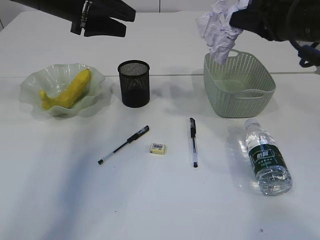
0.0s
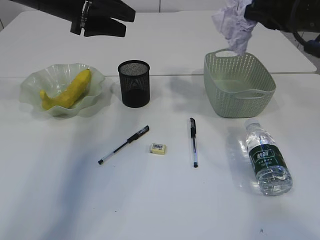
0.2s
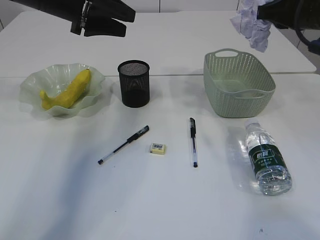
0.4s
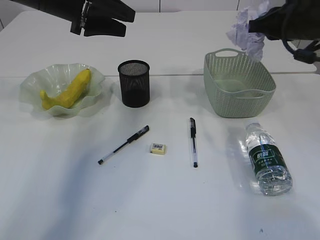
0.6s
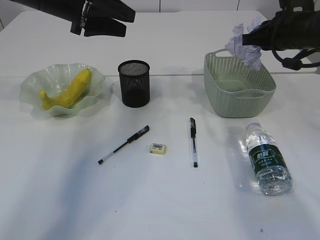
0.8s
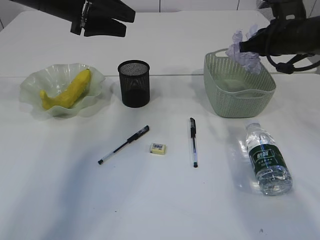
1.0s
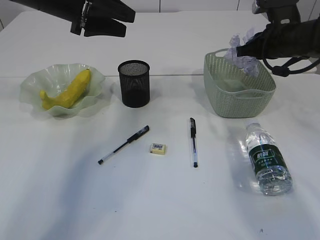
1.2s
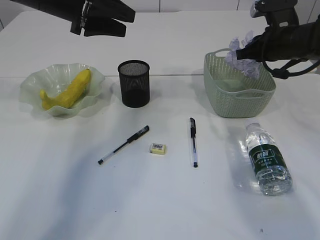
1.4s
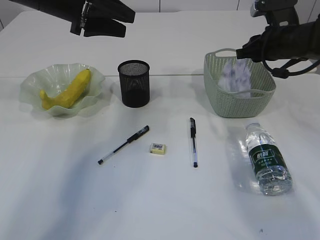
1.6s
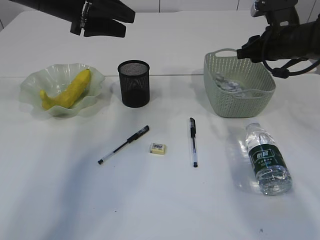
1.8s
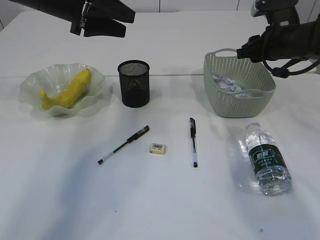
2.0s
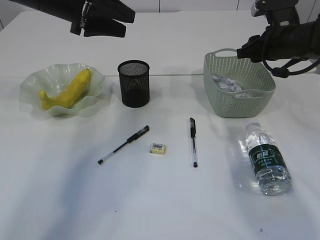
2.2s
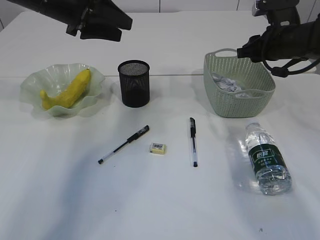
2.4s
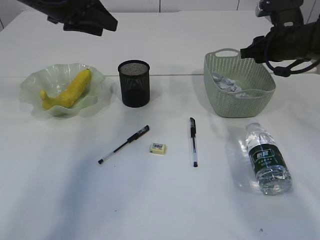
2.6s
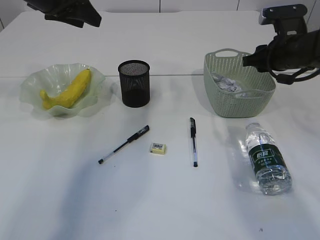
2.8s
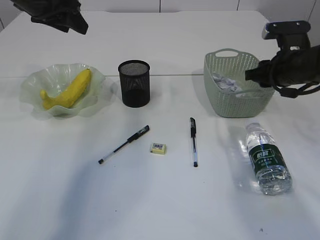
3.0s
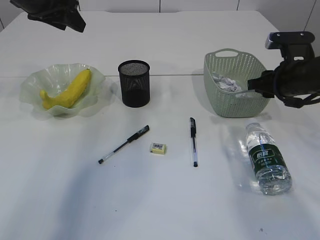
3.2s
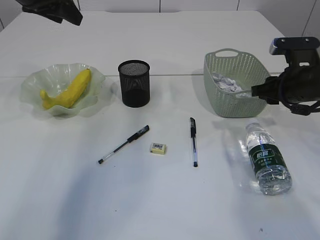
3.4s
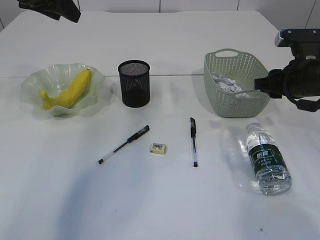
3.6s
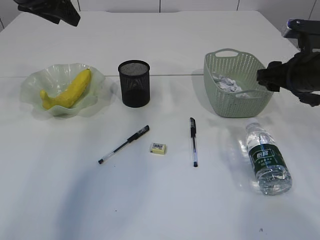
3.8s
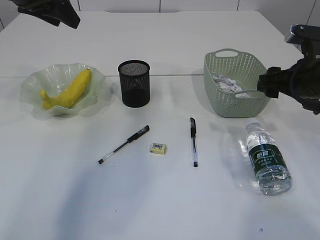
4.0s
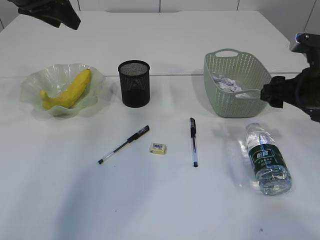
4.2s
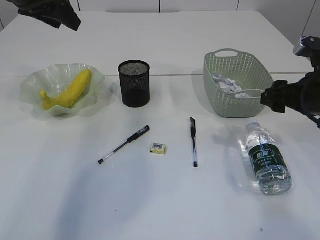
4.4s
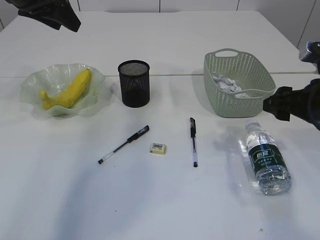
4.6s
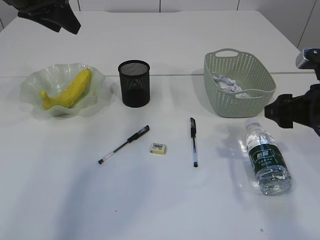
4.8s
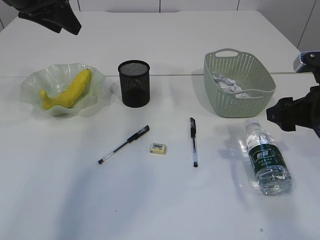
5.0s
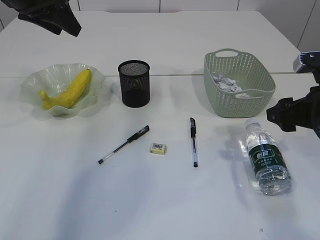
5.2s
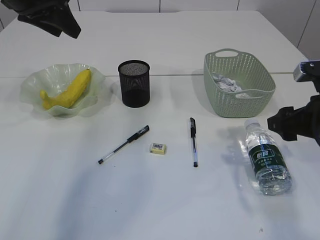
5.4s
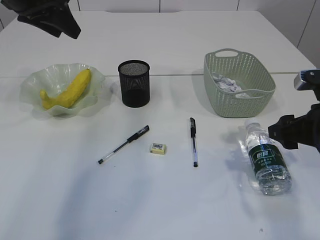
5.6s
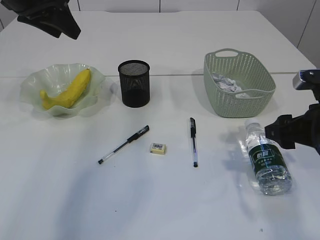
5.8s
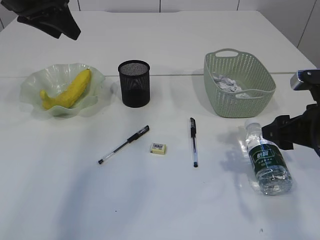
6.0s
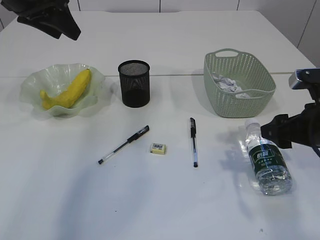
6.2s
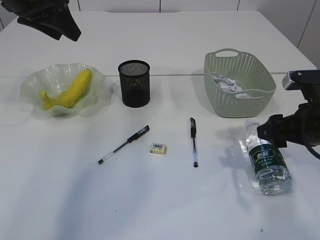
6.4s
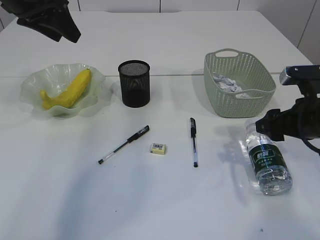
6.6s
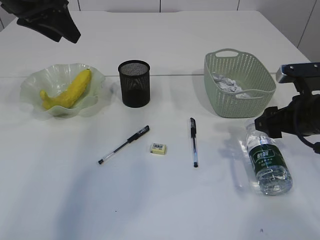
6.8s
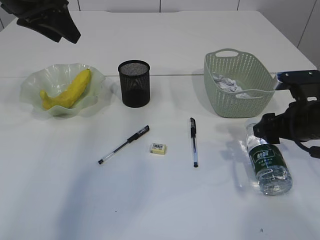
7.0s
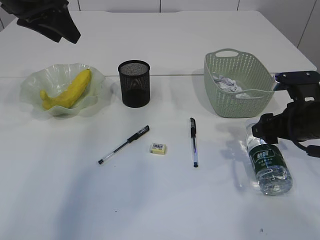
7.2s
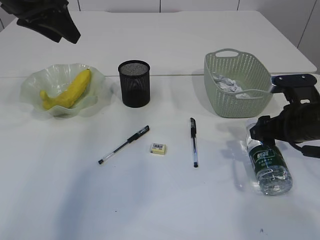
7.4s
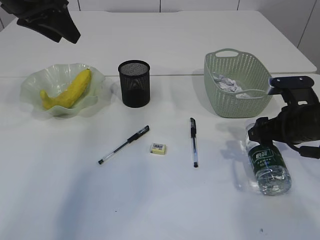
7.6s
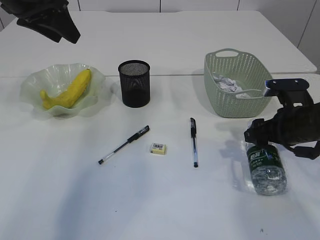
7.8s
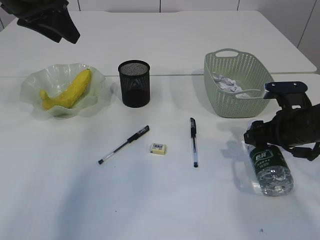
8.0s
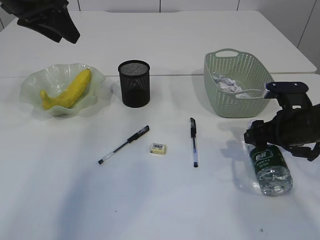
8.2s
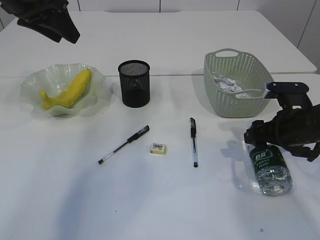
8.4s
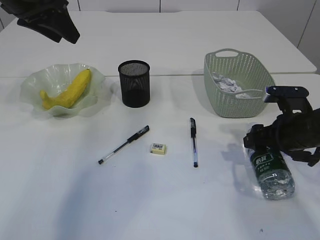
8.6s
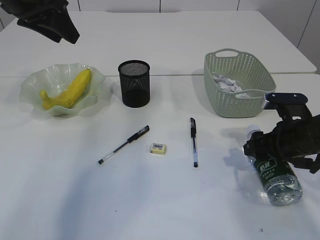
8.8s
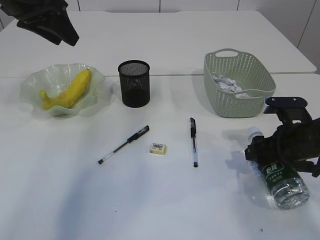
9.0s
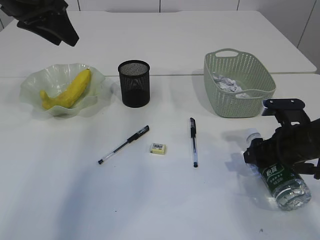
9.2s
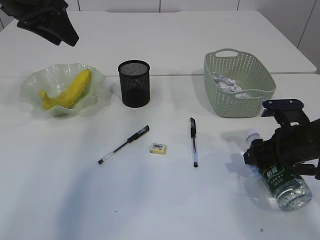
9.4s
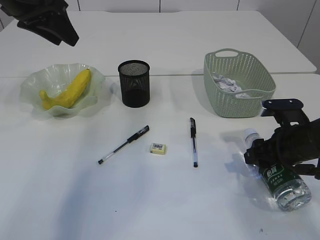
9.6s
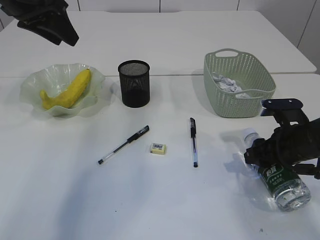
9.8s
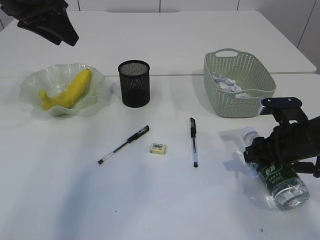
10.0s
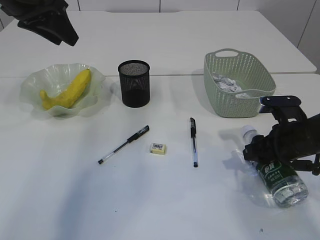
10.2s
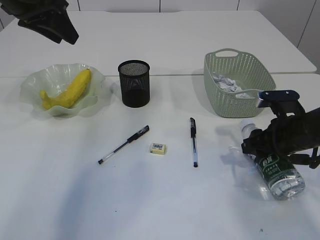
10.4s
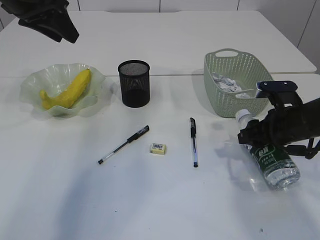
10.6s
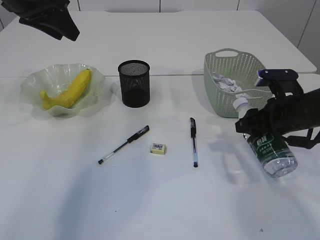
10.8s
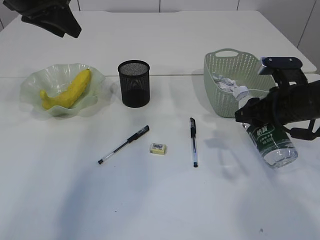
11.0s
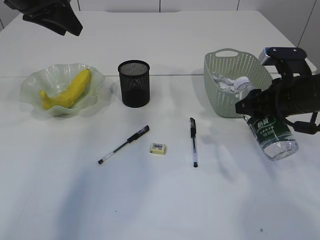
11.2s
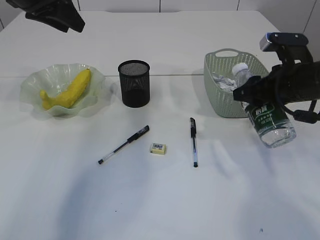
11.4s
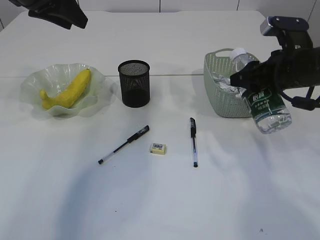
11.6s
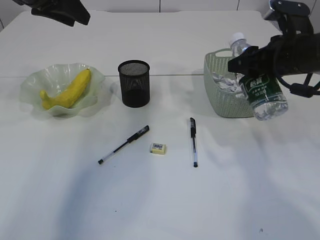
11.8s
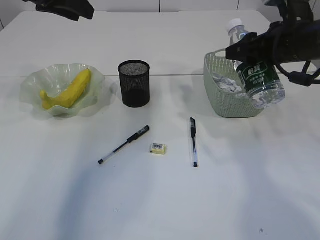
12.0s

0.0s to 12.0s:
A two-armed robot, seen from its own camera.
Step, 0.0s to 1.8s: Place the waste paper in the basket.
Step, 2.0s to 10.8s: Pick up the bottle with the right arm.
0.0s to 1.6s: The right gripper shifts some 15 cm forward and downward.
3.0s to 4.4s: The right gripper travels backward by roughly 10 cm, and opens its fingers.
4.4s to 6.0s: The right gripper moves some 5 cm.
6.0s to 7.6s: The right gripper travels forward by about 5 cm.
7.6s to 9.0s: The grippers move only a little.
9.0s to 10.4s: The two grippers keep their place.
10.4s to 12.0s: The right gripper moves upward, approximately 15 cm.

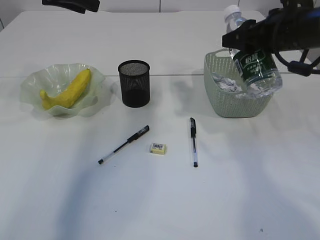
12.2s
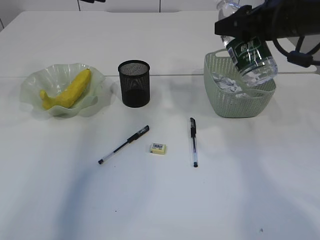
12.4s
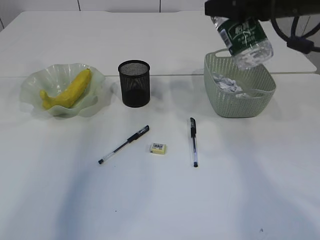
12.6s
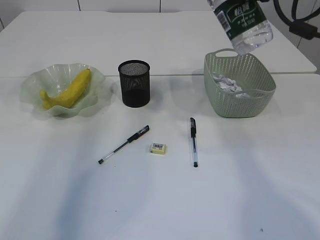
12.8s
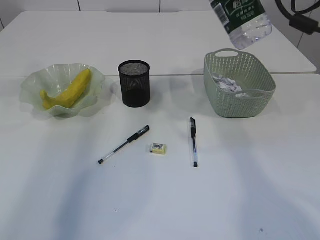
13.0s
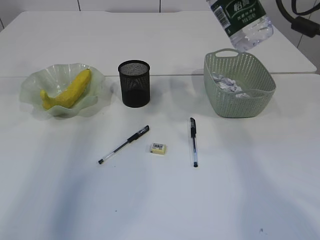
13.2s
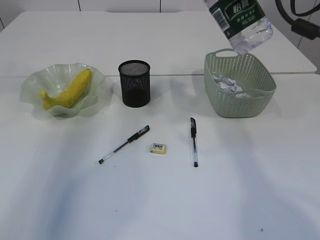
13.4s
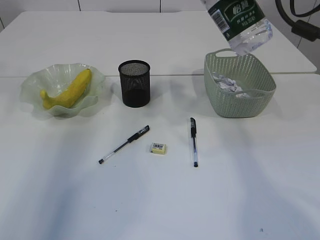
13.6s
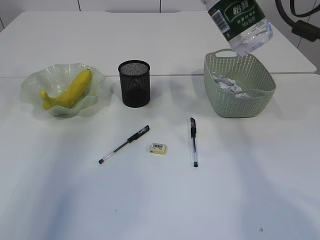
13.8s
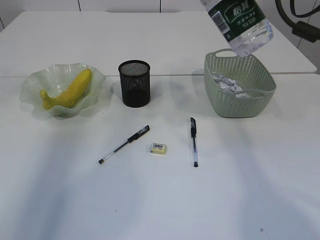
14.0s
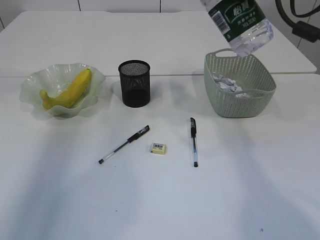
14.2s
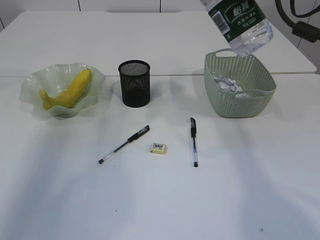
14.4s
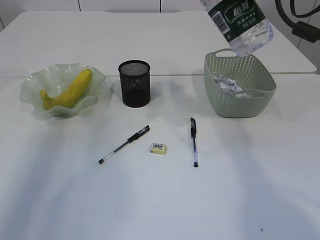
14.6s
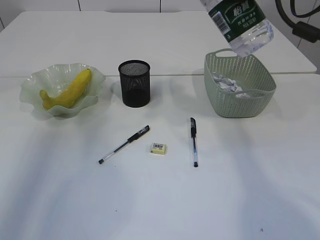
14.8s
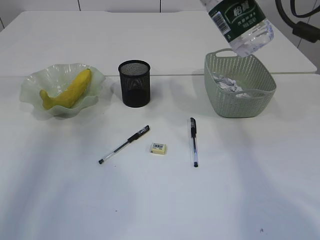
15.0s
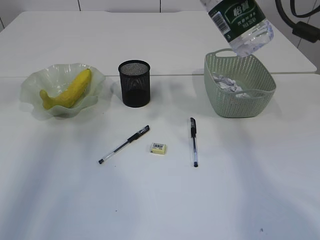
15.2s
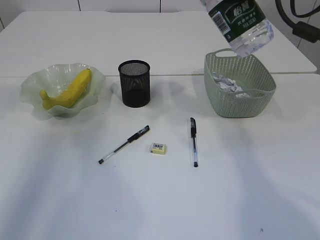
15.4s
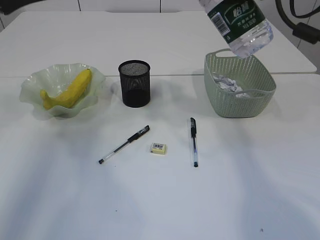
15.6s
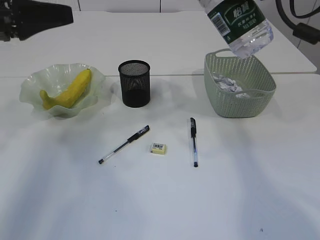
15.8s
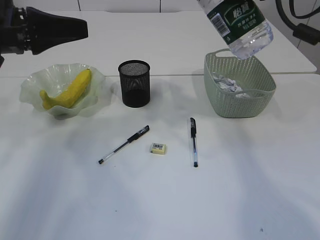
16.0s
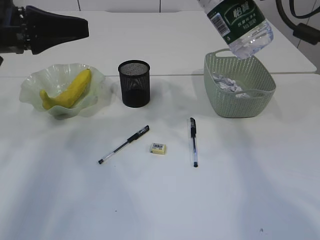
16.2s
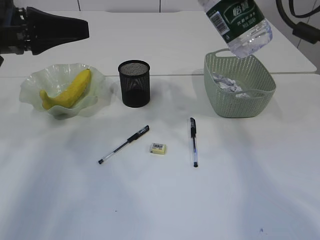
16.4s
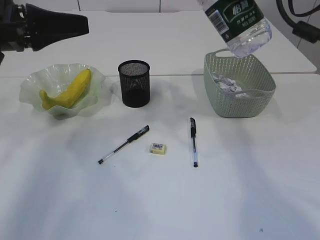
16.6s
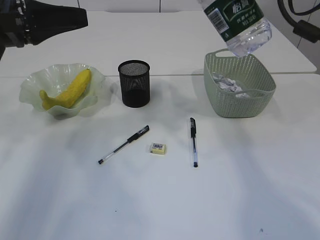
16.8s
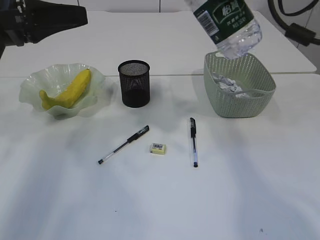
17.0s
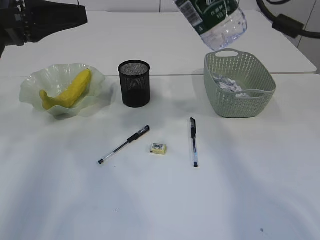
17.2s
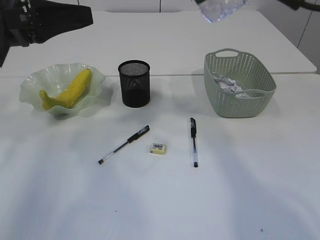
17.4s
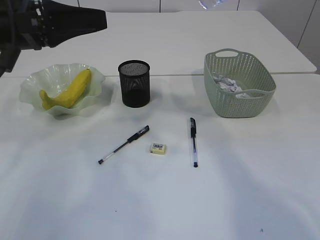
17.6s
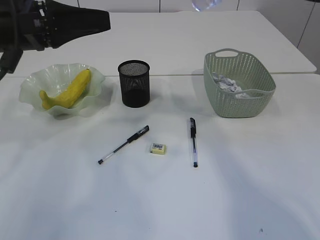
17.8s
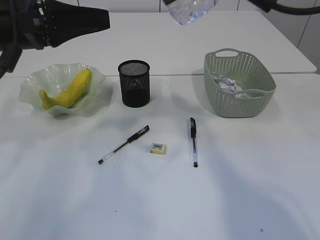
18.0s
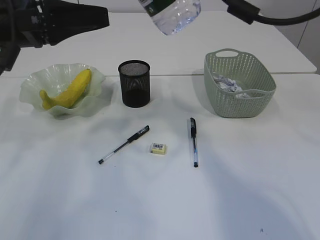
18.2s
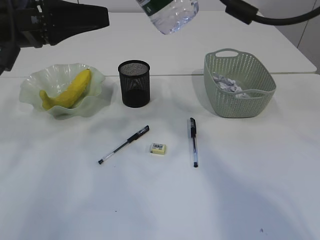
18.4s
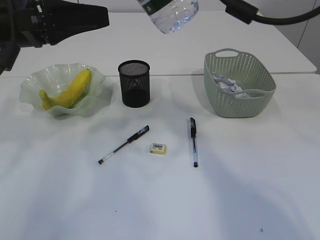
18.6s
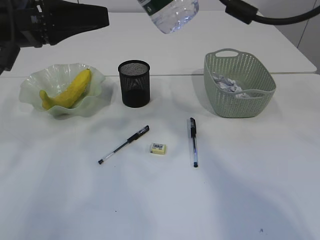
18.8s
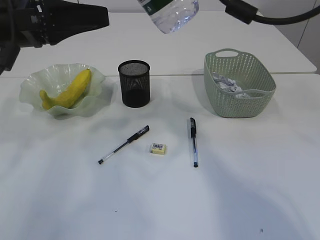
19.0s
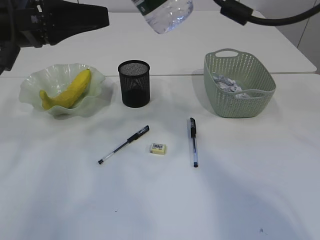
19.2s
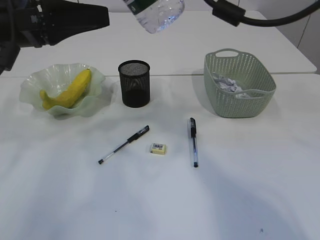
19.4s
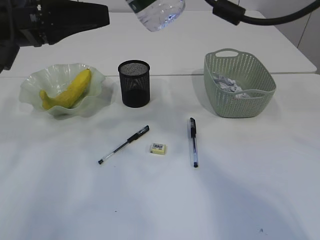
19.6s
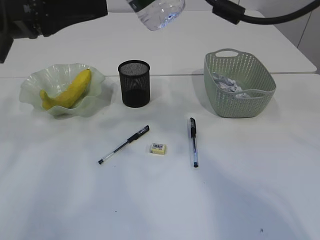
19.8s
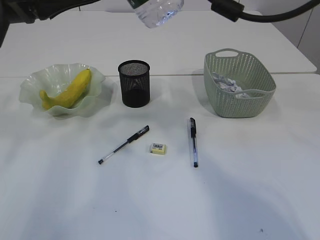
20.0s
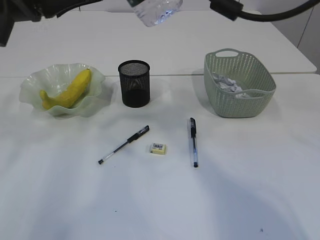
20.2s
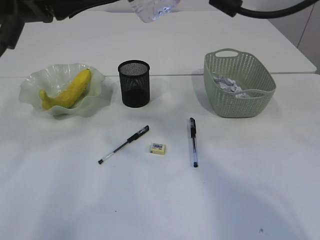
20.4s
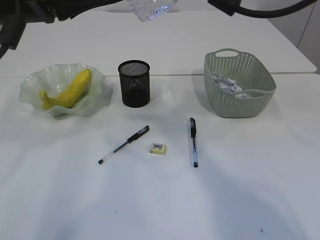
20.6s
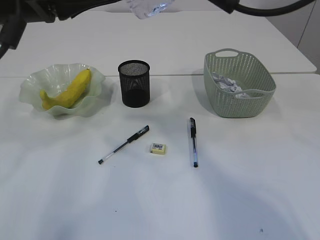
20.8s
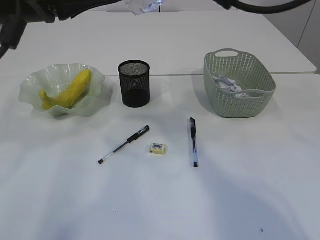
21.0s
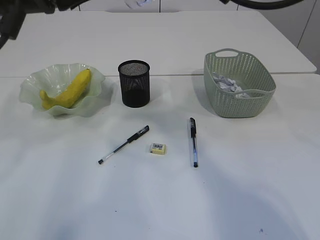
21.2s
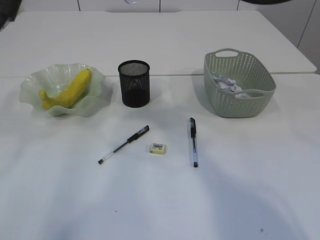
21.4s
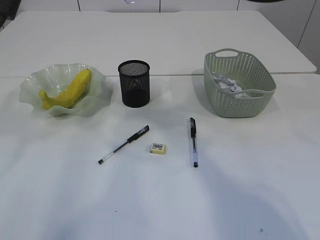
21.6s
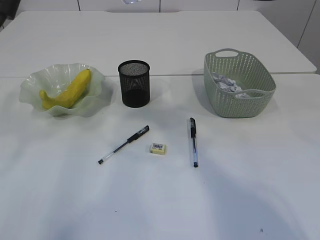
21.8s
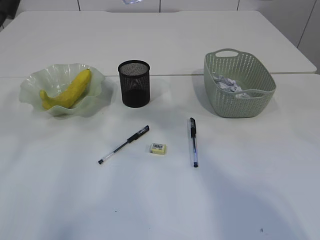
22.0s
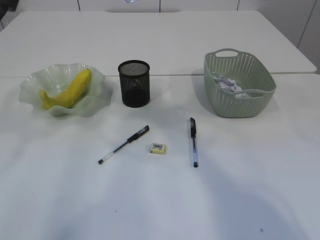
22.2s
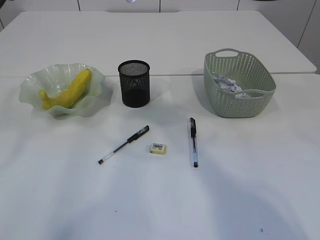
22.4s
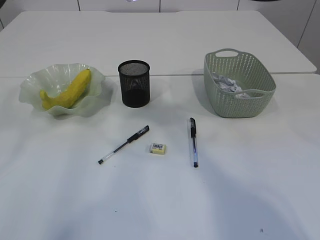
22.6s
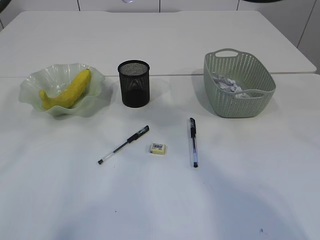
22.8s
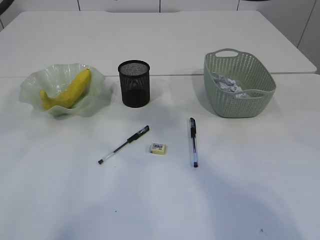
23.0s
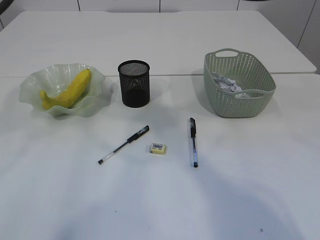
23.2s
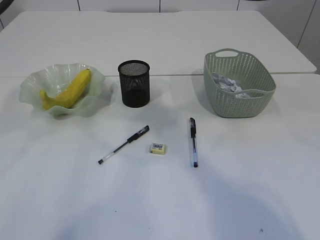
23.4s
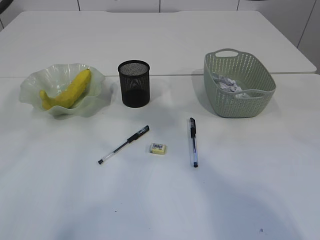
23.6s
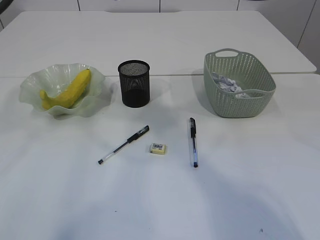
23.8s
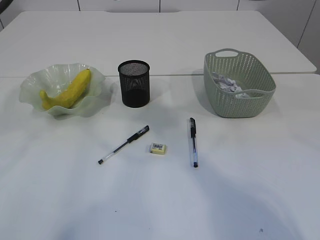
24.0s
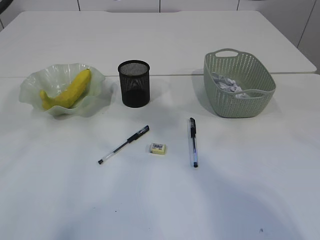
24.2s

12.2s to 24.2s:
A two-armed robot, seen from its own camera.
12.2s to 13.8s: The grippers both shift upward by approximately 10 cm.
15.2s to 16.6s: The left gripper is displaced downward, to the right and backward by approximately 10 cm.
16.6s to 18.2s: The right gripper heads to the left, covering roughly 10 cm.
18.2s to 19.8s: The left gripper opens.
19.8s to 21.2s: The grippers move only a little.
21.2s to 22.6s: The grippers stay close to where they were, moving slightly.
